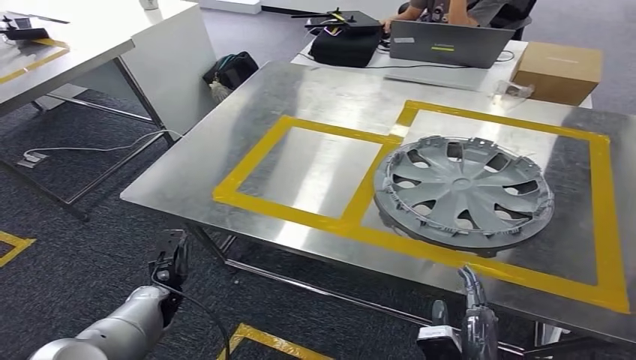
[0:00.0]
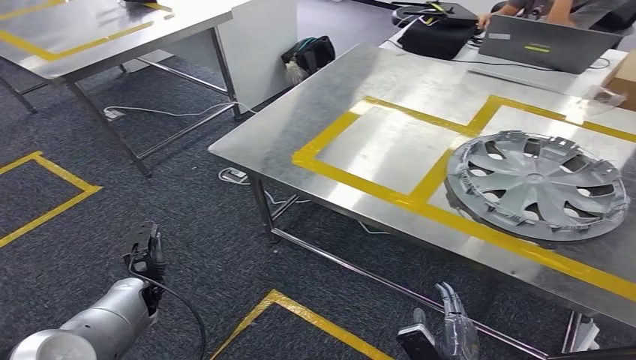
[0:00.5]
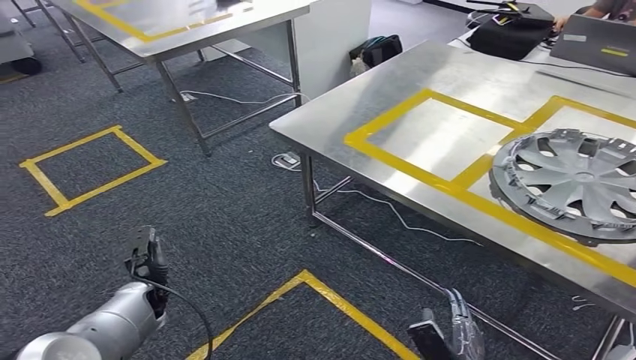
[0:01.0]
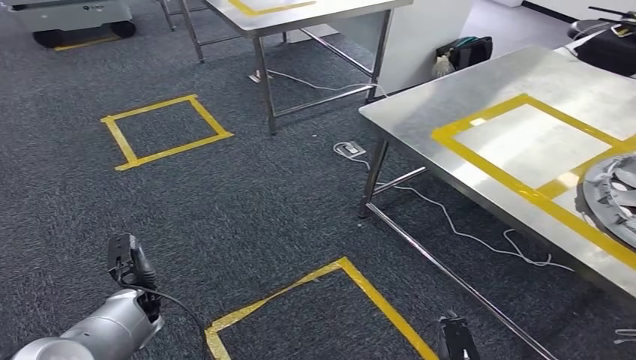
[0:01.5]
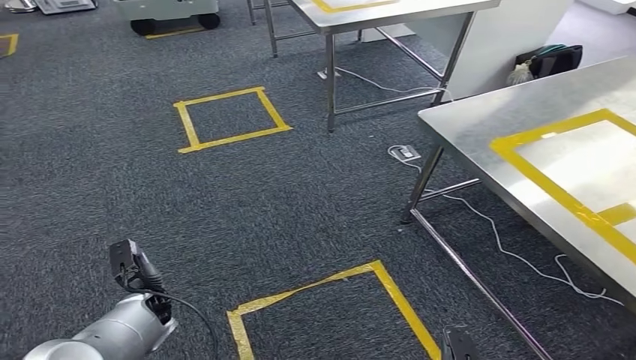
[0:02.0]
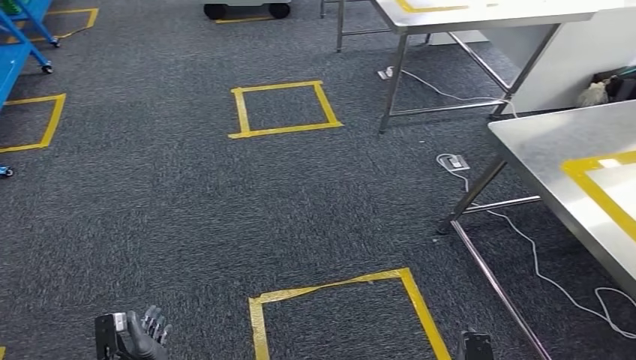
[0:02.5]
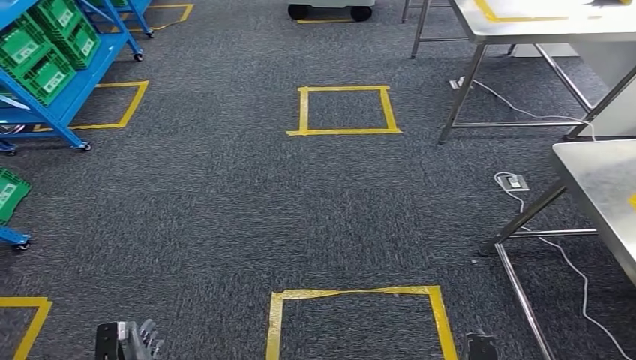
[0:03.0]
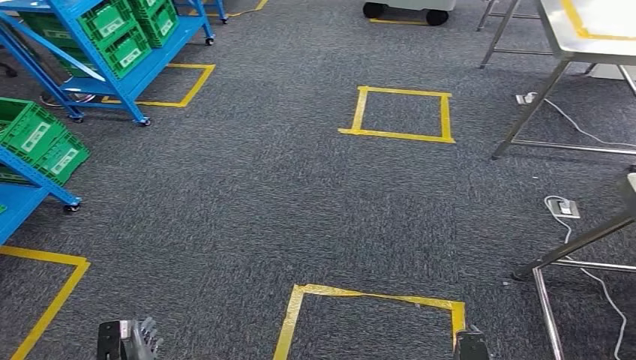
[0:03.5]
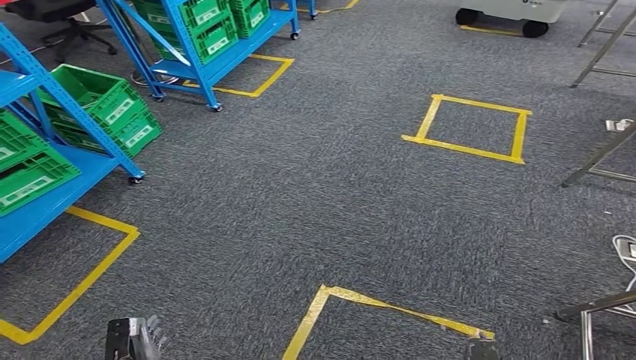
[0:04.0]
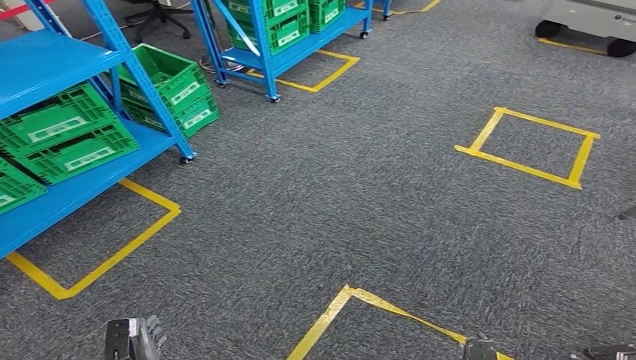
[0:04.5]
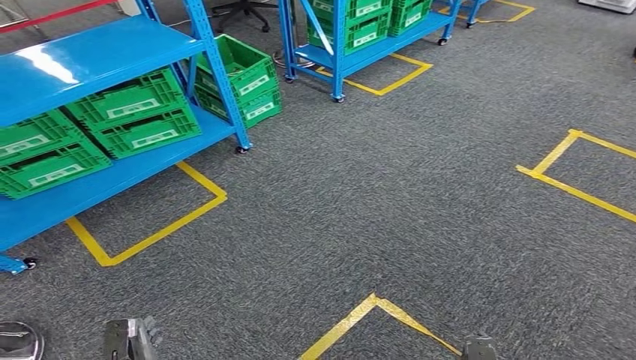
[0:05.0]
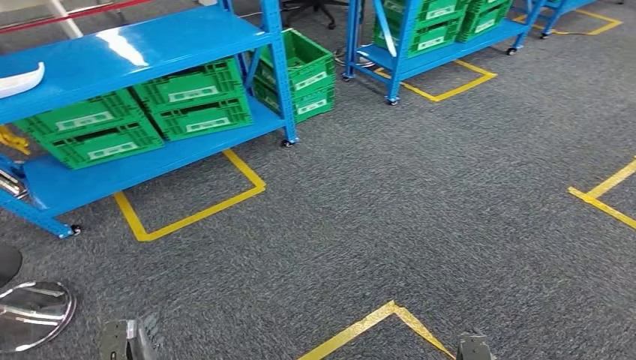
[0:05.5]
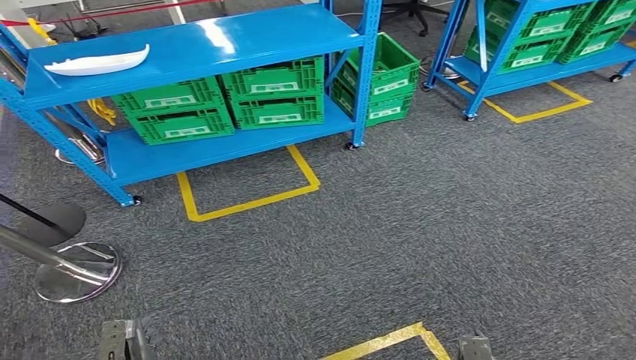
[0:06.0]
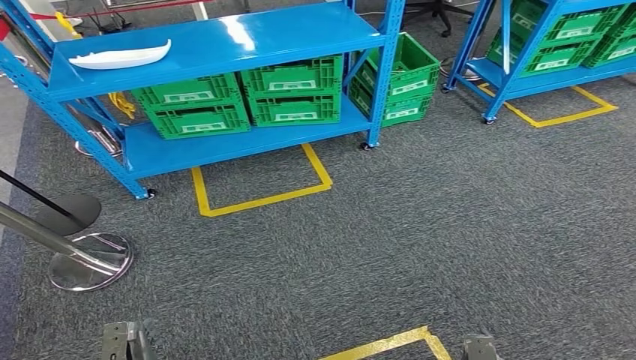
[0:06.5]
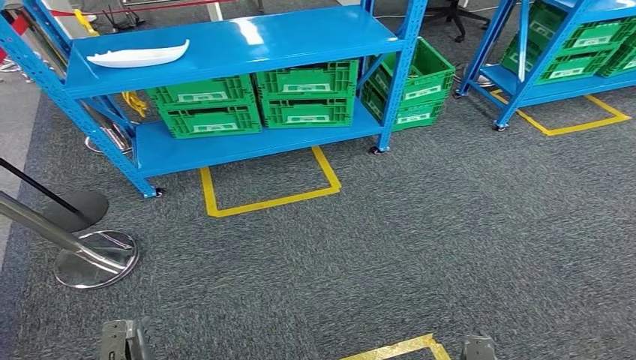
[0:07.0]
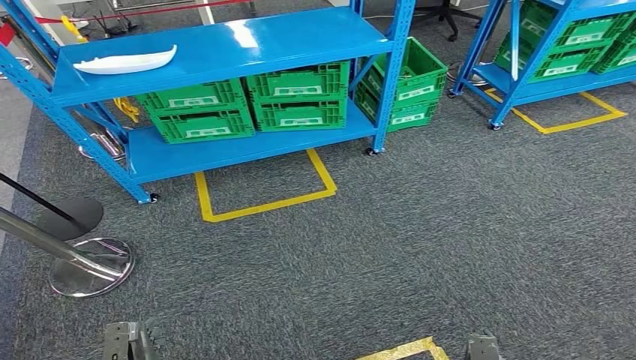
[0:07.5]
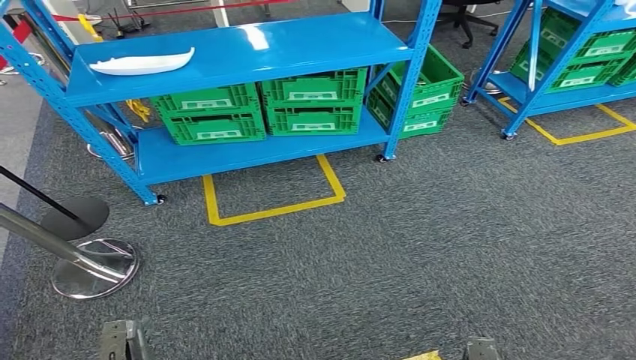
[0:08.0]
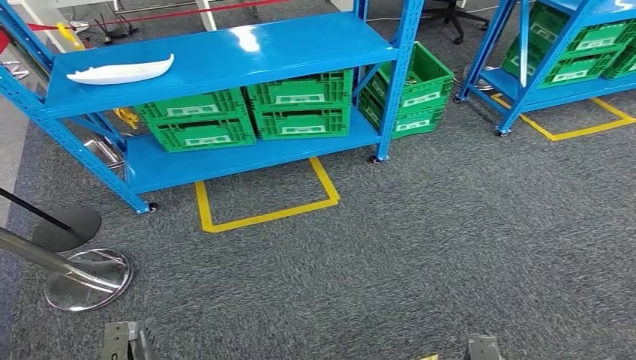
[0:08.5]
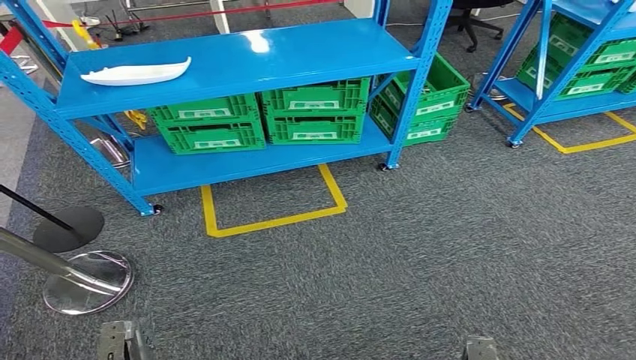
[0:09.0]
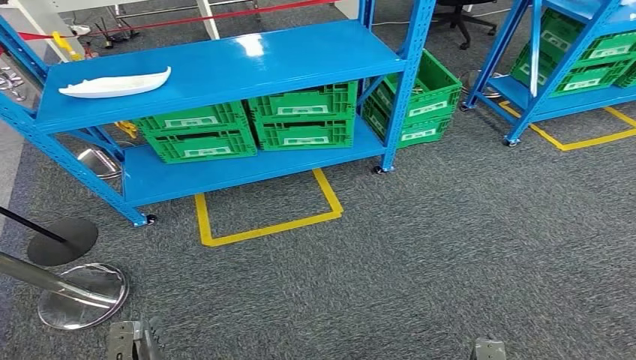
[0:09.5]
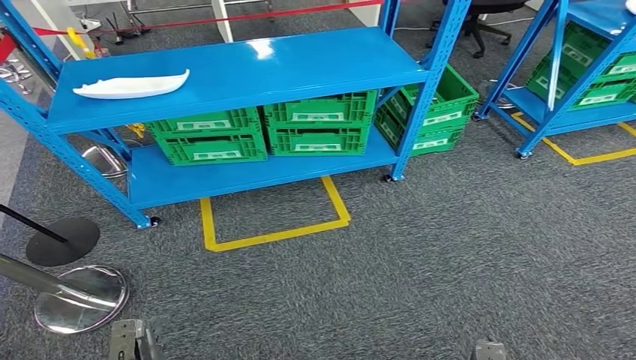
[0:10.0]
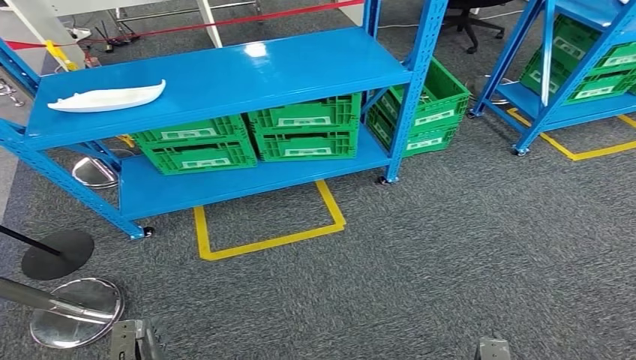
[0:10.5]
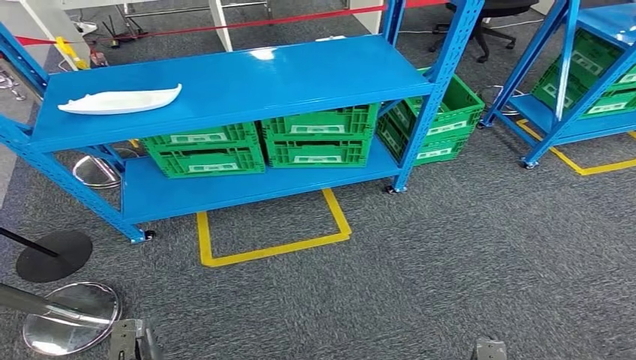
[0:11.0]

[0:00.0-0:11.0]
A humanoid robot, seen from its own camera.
Step, 0:00.0 to 0:11.0: Return to the initial position at the workbench.

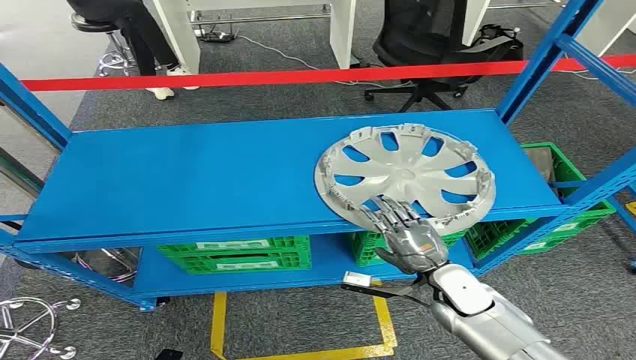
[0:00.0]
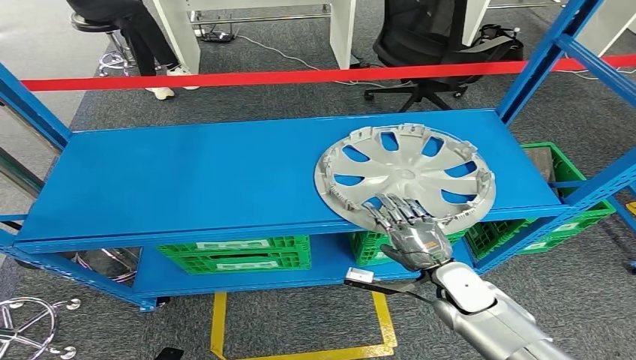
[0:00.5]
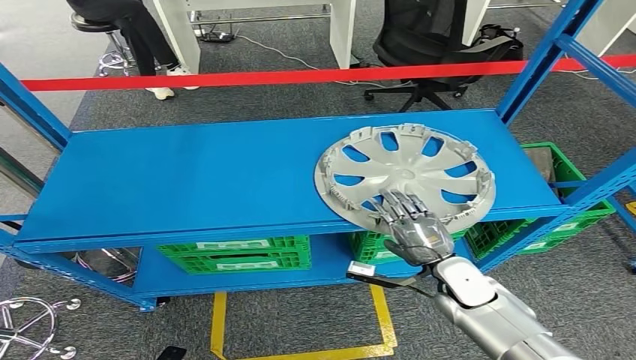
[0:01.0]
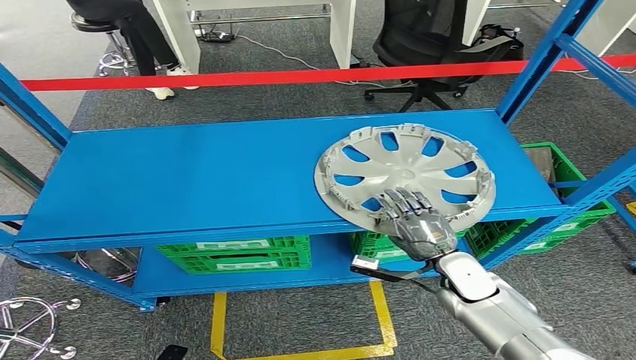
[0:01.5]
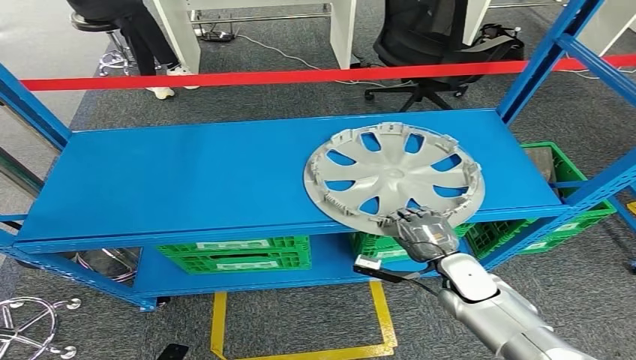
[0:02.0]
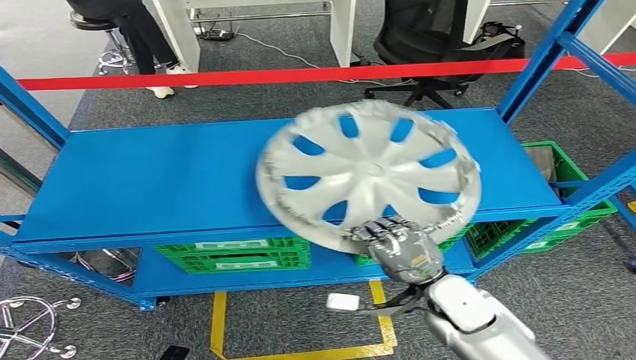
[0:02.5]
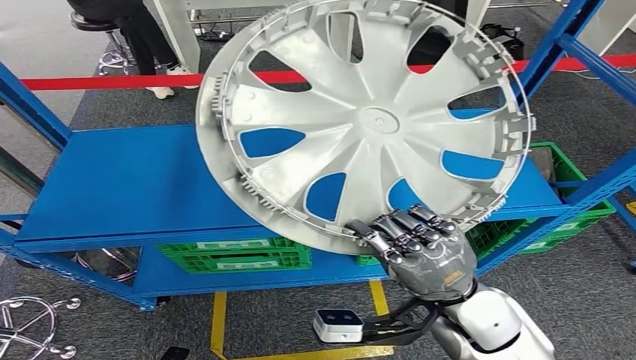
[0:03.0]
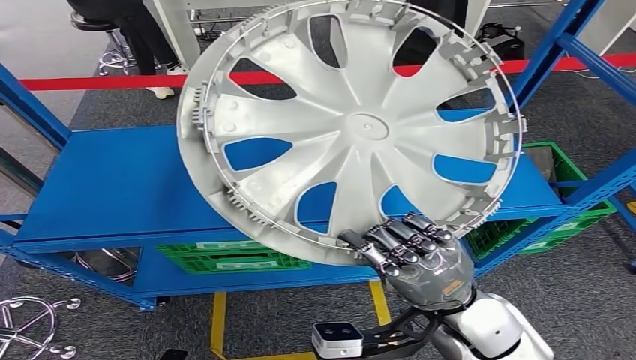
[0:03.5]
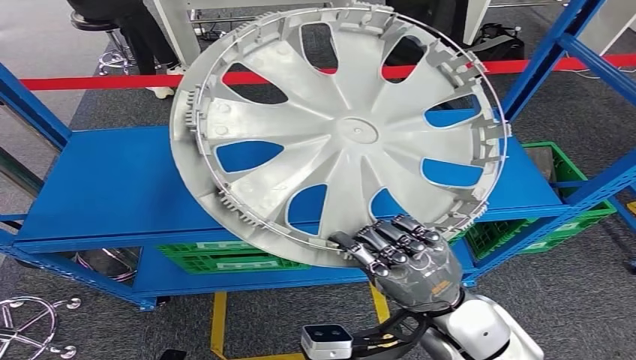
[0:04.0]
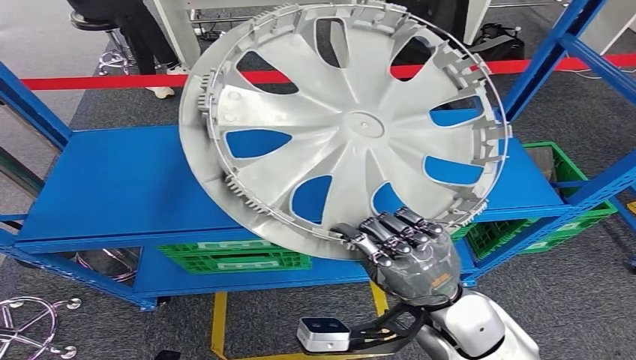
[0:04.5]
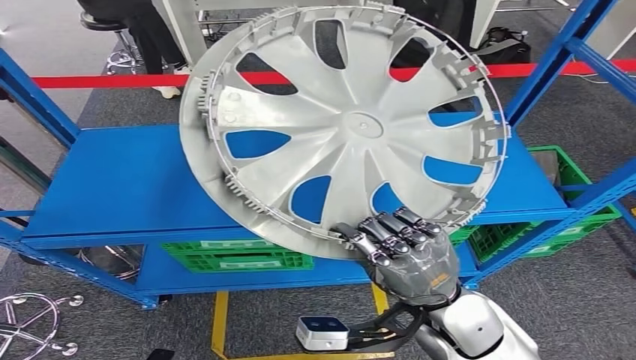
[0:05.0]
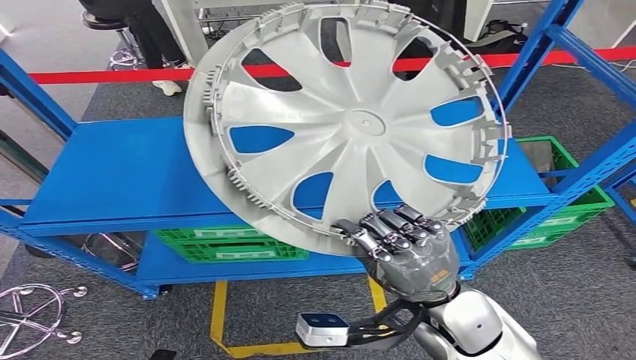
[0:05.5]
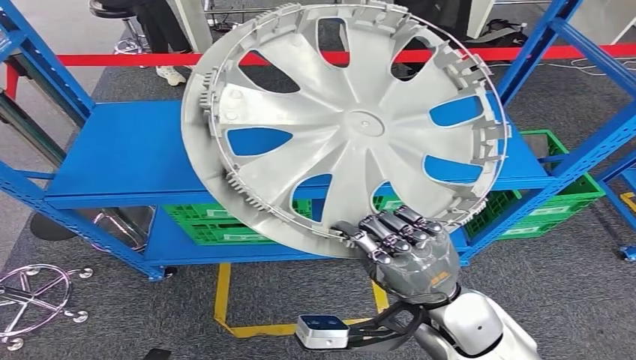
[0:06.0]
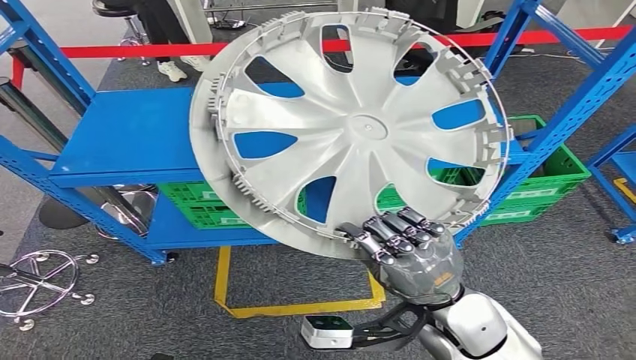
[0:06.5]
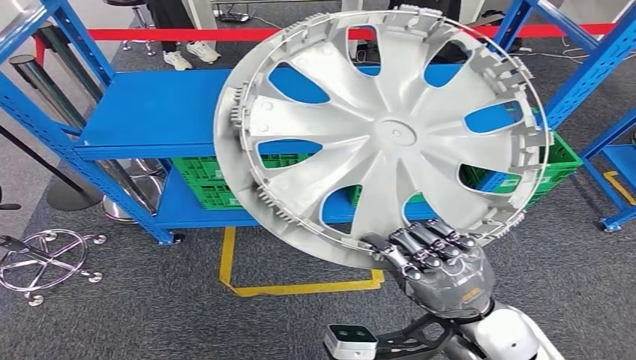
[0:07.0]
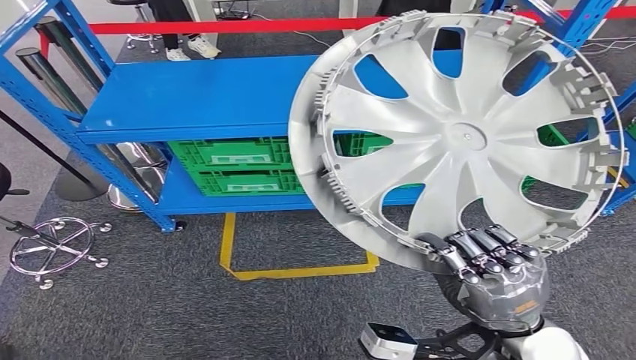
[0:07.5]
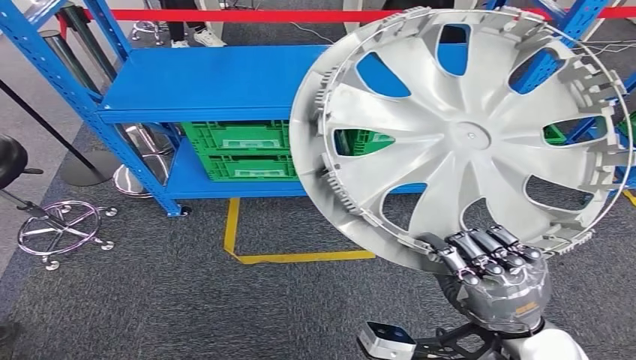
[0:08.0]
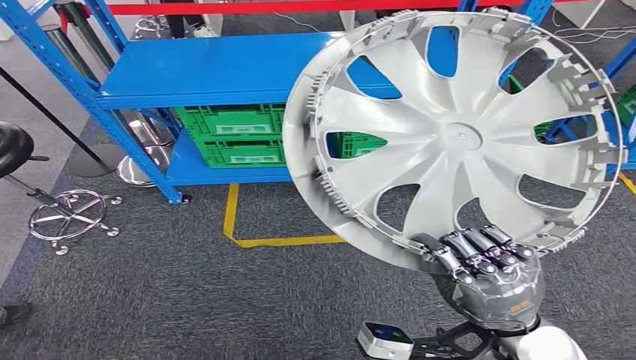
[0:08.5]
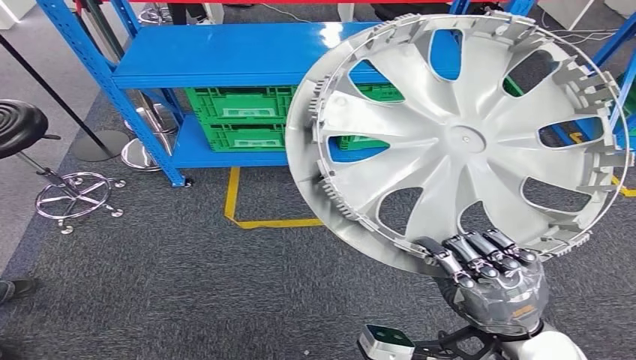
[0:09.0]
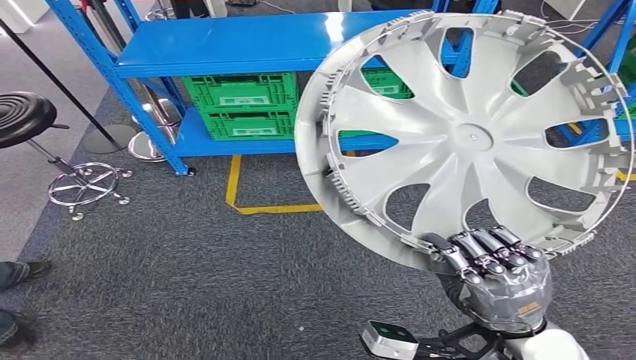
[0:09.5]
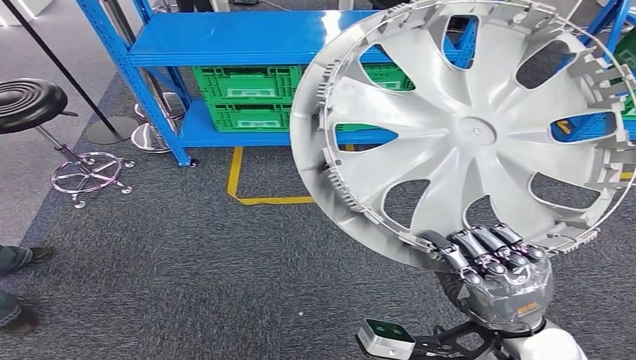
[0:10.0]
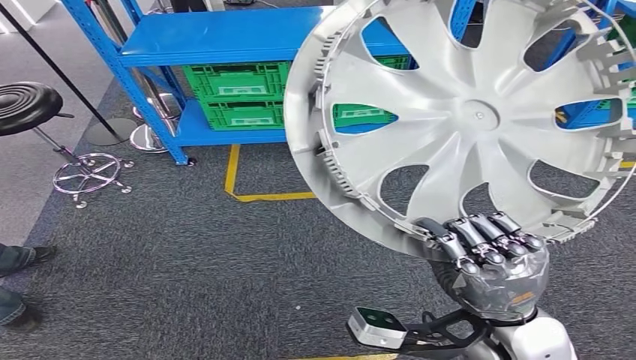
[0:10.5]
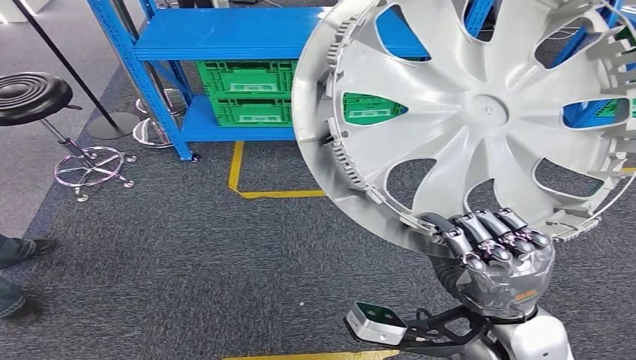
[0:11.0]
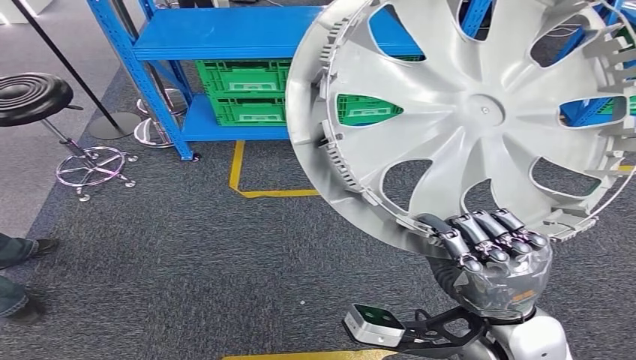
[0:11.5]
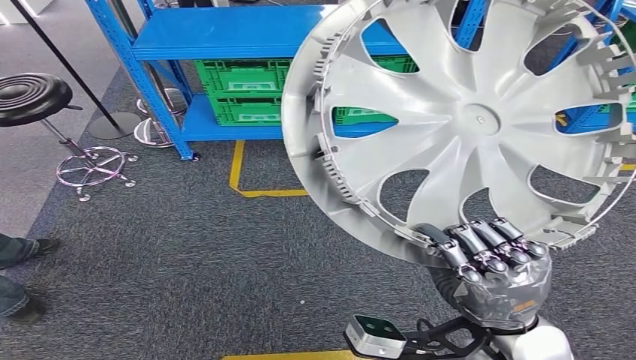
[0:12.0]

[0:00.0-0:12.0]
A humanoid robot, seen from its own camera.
Step, 0:00.0 to 0:05.0: Pick up the small component from the shelf.
